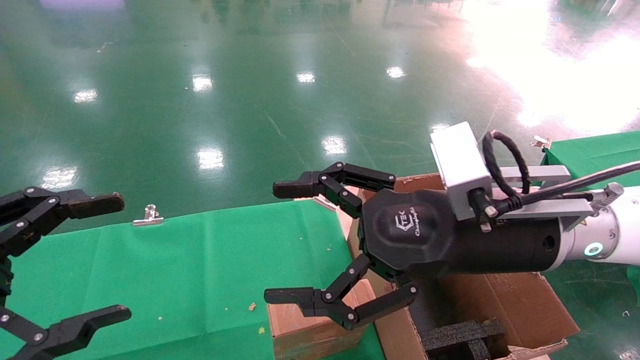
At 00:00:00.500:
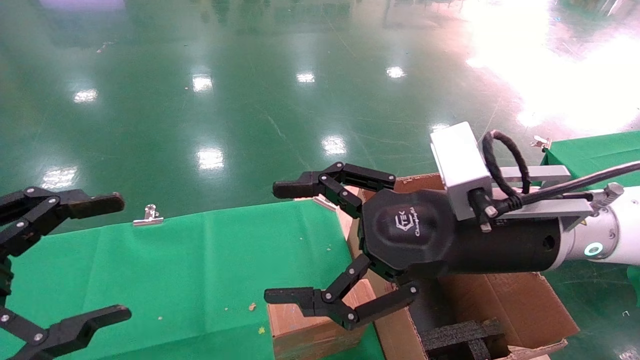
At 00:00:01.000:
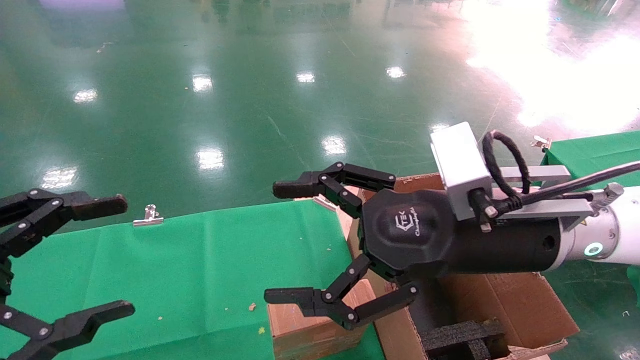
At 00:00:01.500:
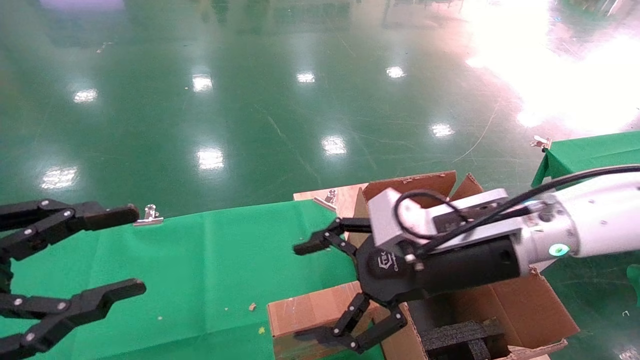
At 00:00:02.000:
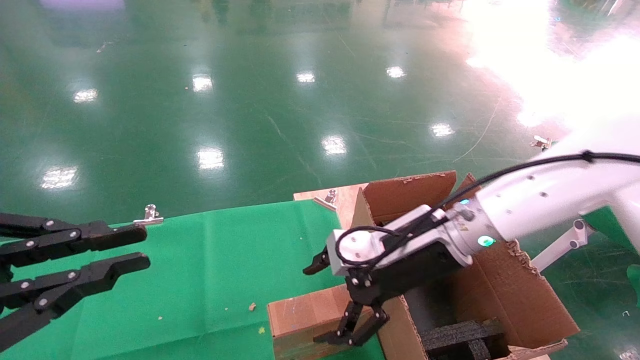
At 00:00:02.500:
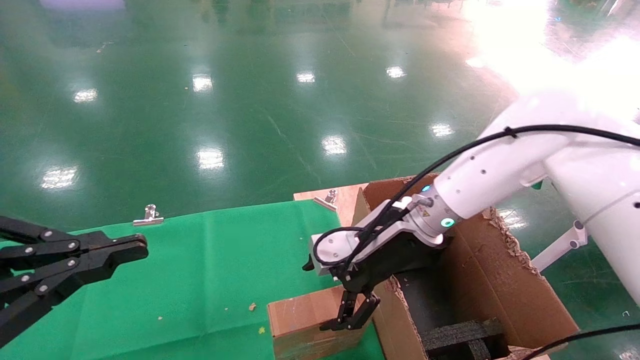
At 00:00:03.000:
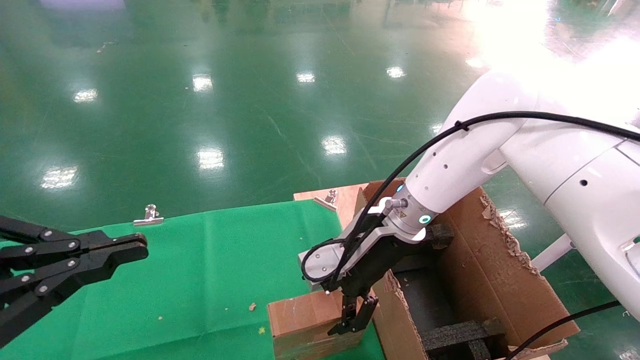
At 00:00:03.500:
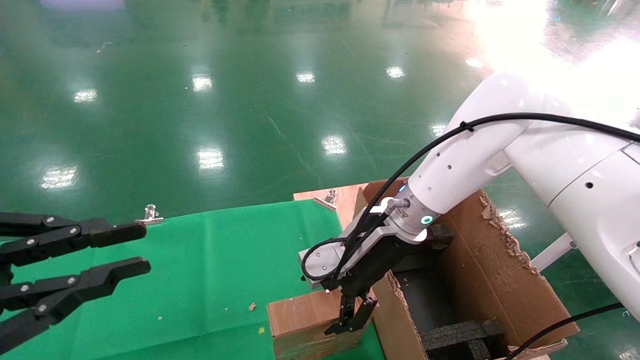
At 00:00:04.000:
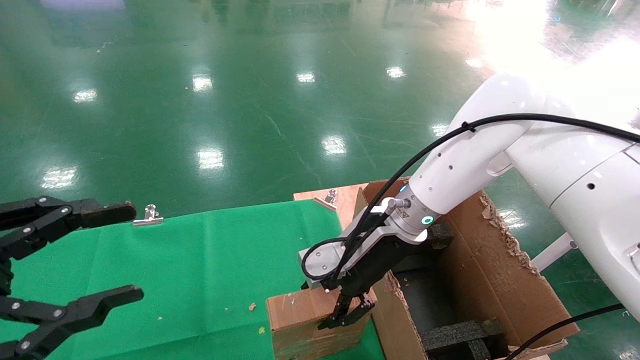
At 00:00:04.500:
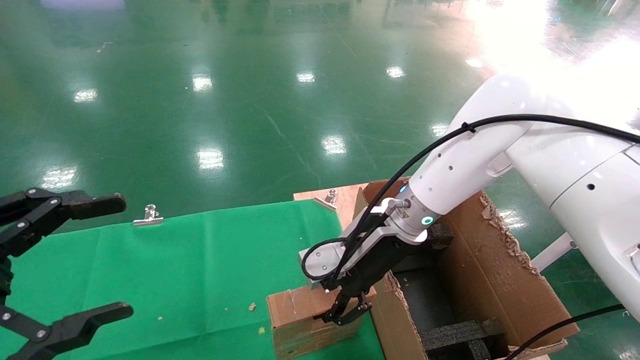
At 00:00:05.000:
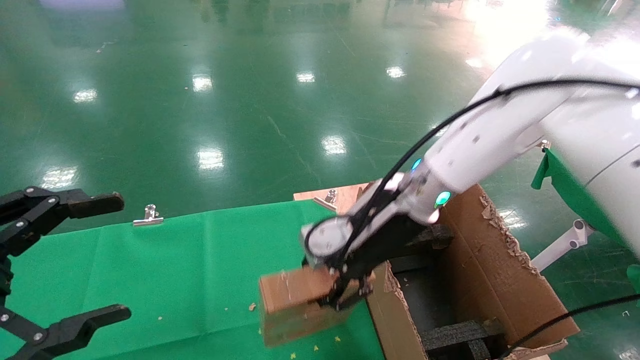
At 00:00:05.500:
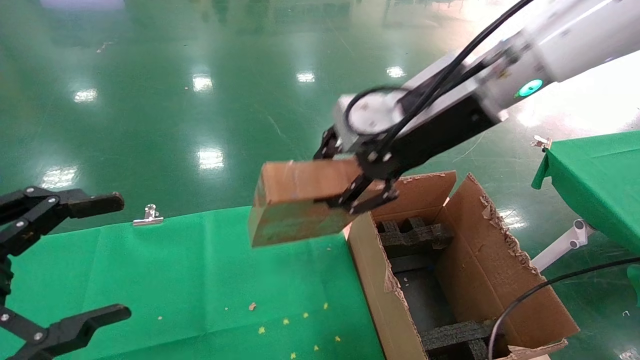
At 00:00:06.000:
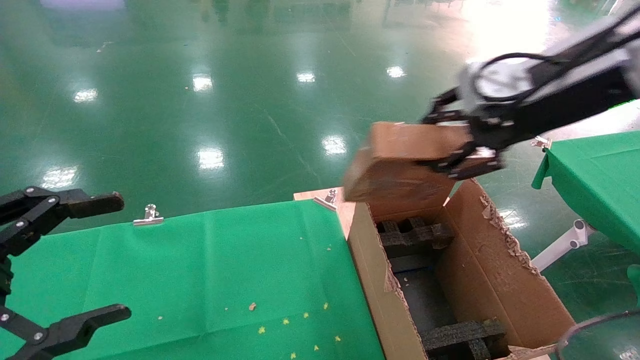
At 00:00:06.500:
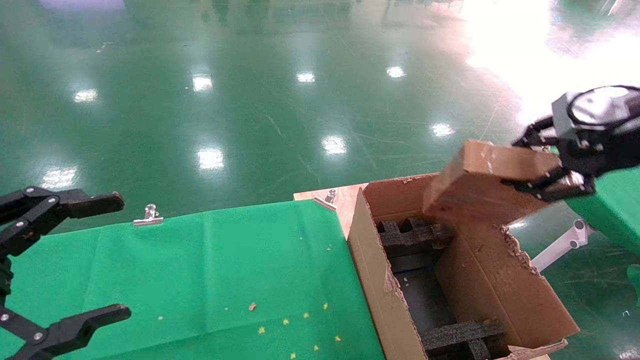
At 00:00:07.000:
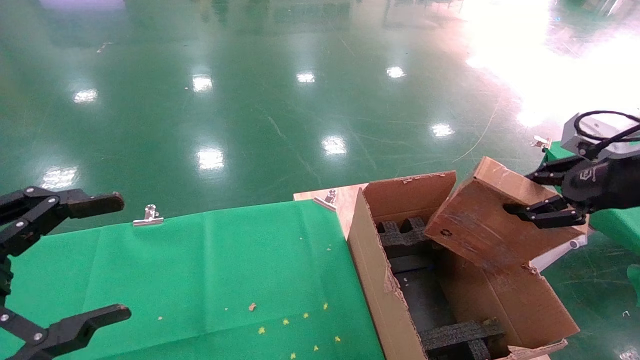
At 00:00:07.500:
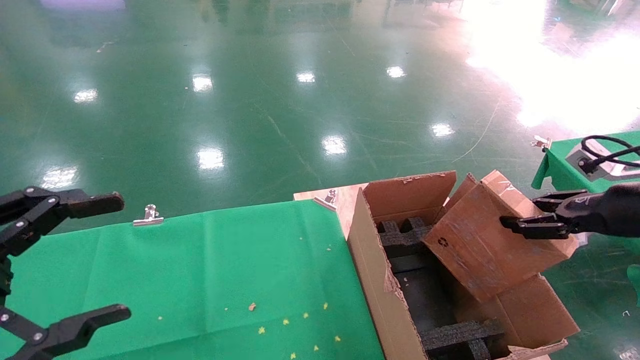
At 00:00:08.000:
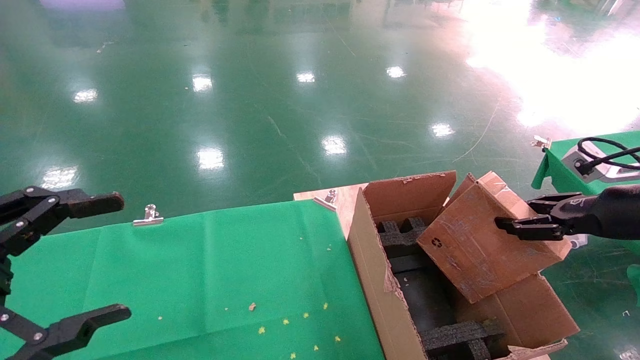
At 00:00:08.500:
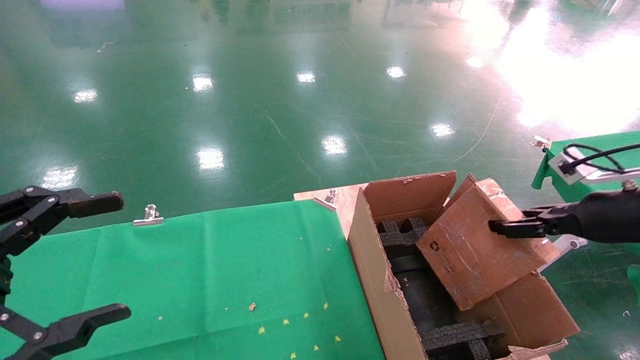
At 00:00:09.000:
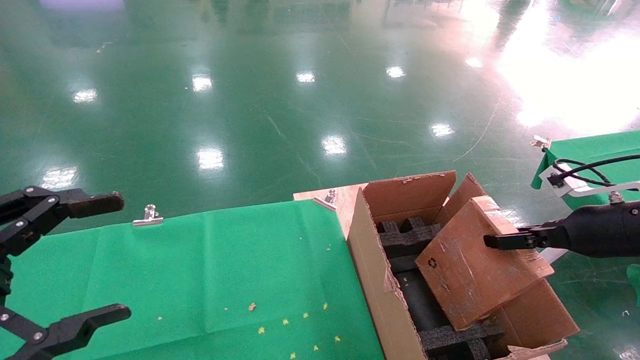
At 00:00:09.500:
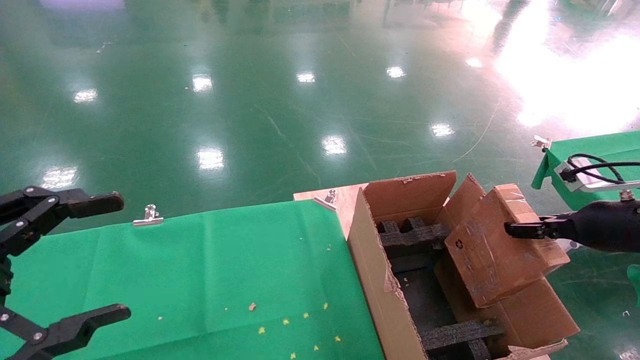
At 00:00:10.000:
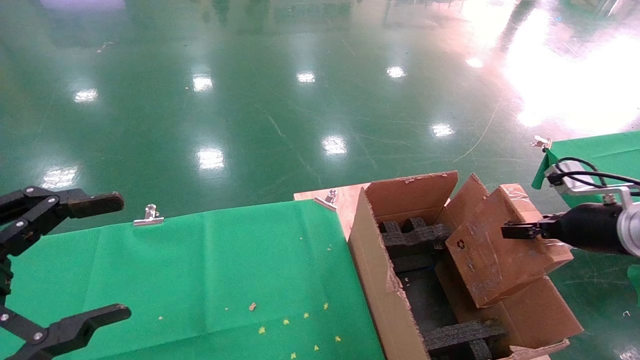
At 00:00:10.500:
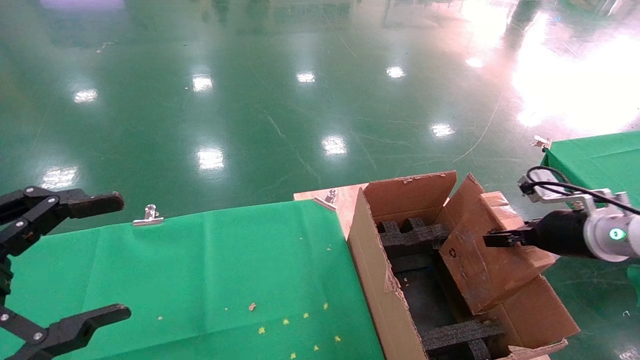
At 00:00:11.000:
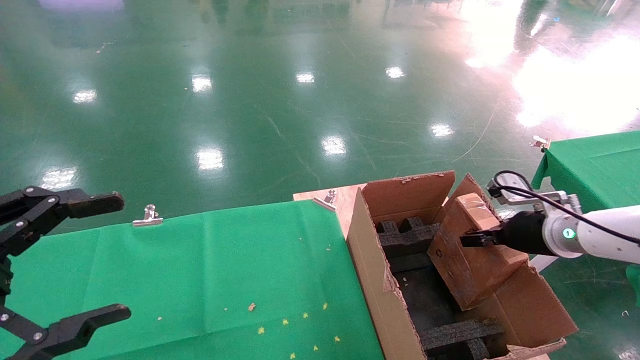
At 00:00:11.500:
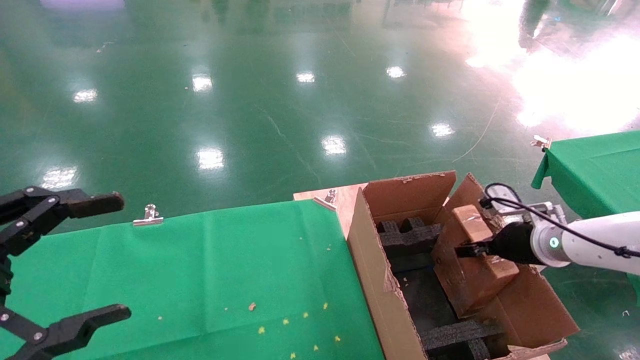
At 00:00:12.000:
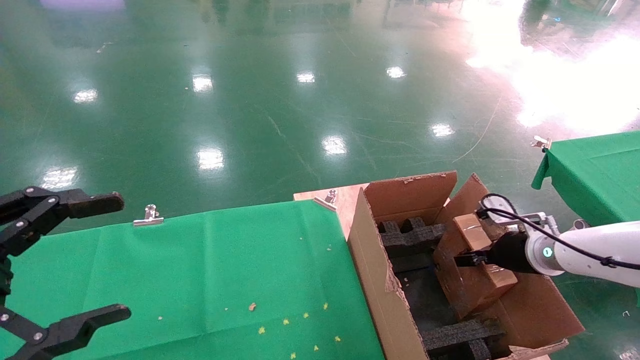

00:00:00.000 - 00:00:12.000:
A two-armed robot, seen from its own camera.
Task of the whole recording: using a robotic arm to pick up a cardboard box and palace it the carton.
Step, 00:00:01.500 - 00:00:04.500: Pick up the mouse and the power cord paper box.
00:00:00.000 - 00:00:02.000: The left gripper closes its fingers; the right gripper is displaced forward and downward by roughly 10 cm.
00:00:02.000 - 00:00:04.000: The right gripper moves forward, roughly 5 cm.
00:00:04.000 - 00:00:06.000: The left gripper opens; the right gripper goes roughly 25 cm upward, to the right and backward, and closes its fingers.
00:00:06.000 - 00:00:08.000: The right gripper heads to the right and downward, covering some 25 cm.
00:00:08.000 - 00:00:10.000: The right gripper heads downward, covering roughly 5 cm.
00:00:10.000 - 00:00:12.000: The right gripper is displaced downward, forward and to the left by approximately 10 cm.

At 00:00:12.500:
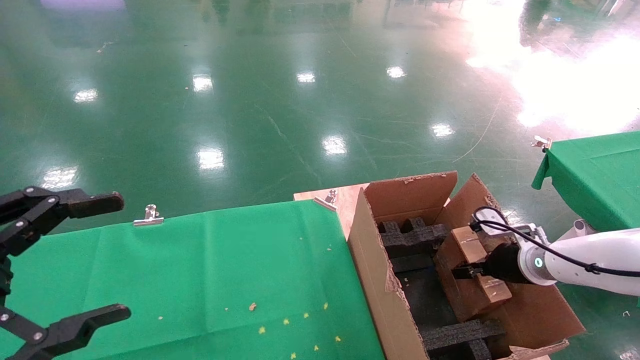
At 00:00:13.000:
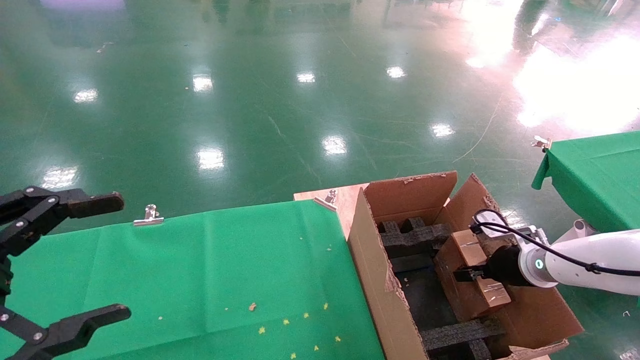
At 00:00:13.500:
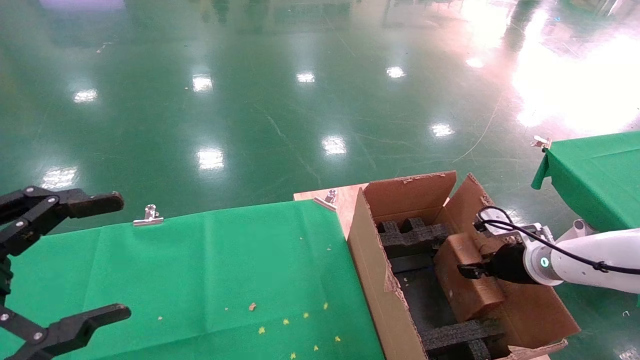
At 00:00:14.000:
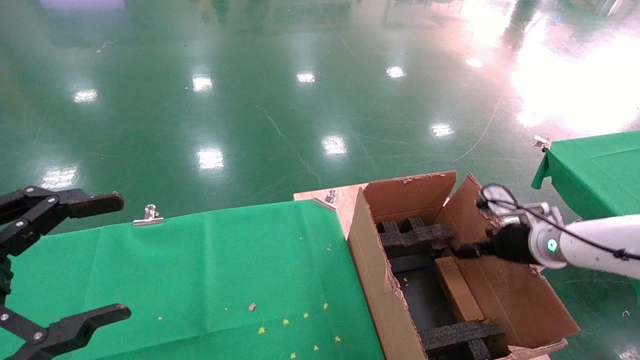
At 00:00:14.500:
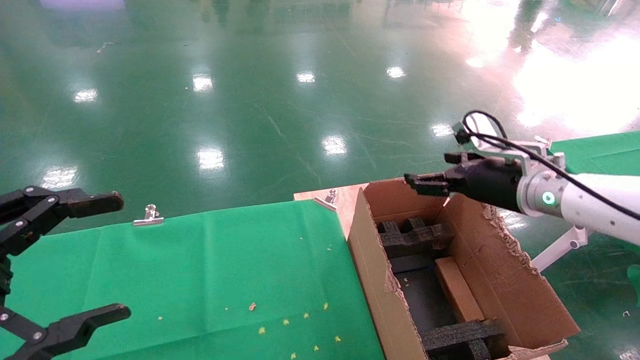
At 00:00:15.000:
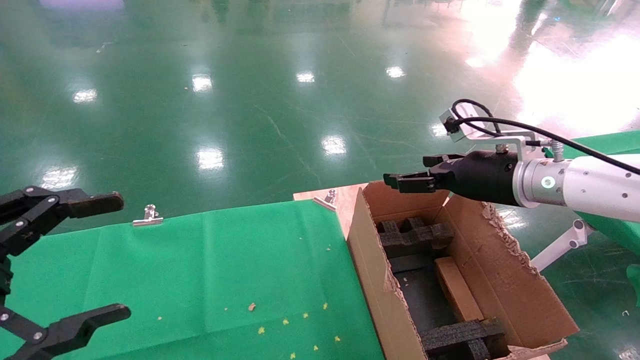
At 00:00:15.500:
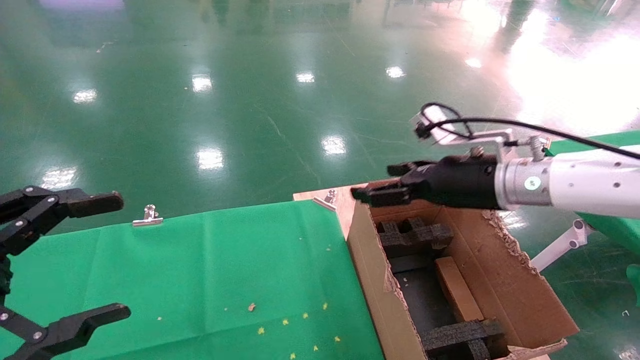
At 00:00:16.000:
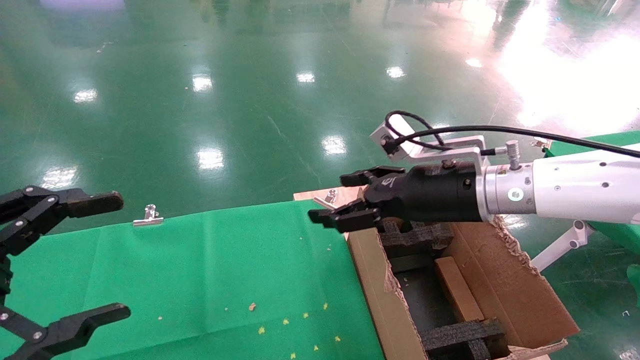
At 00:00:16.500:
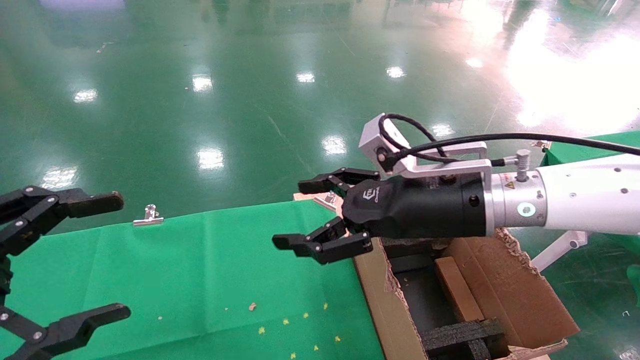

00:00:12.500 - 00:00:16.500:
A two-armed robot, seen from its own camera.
Task of the whole recording: using a robotic arm to pick up a cardboard box and palace it the carton.
00:00:12.500 - 00:00:14.500: The right gripper is displaced upward and to the left by about 15 cm, and opens up.
00:00:14.500 - 00:00:16.500: The right gripper travels to the left and backward by about 15 cm.
